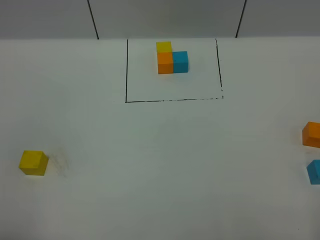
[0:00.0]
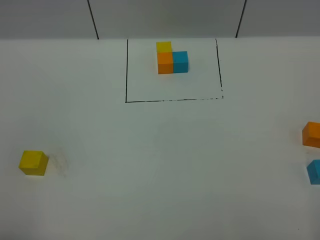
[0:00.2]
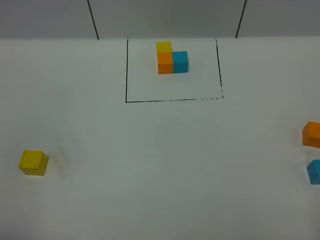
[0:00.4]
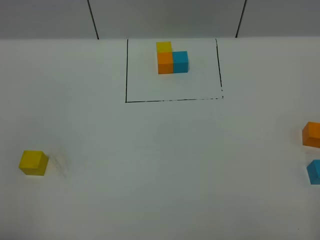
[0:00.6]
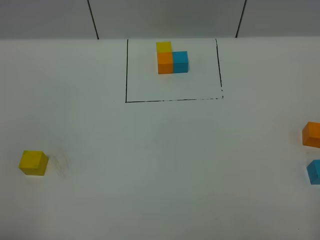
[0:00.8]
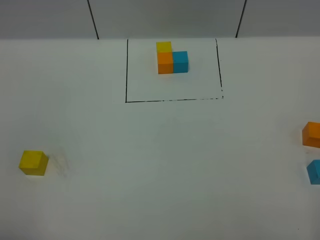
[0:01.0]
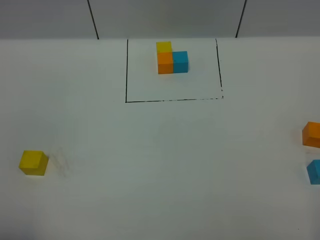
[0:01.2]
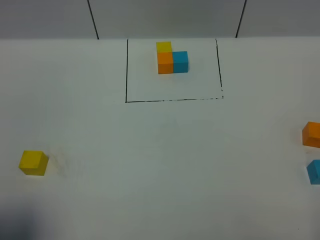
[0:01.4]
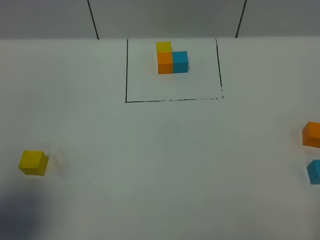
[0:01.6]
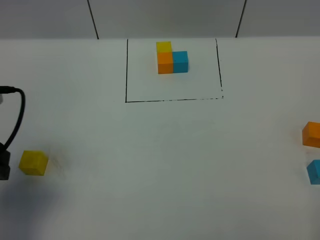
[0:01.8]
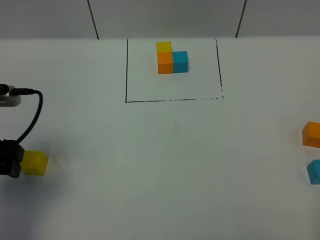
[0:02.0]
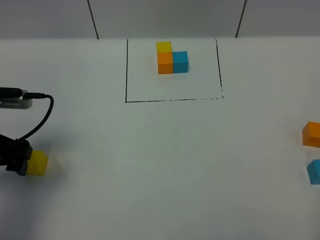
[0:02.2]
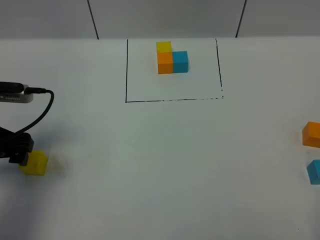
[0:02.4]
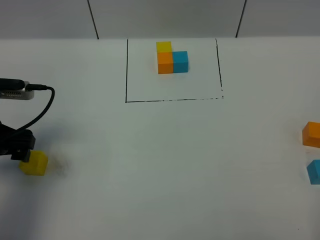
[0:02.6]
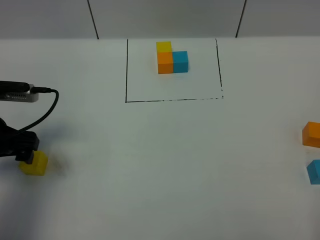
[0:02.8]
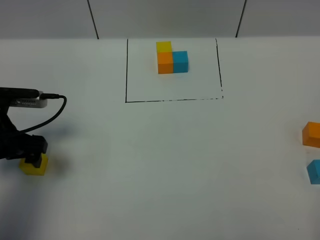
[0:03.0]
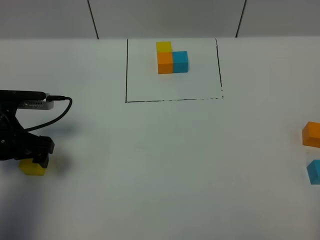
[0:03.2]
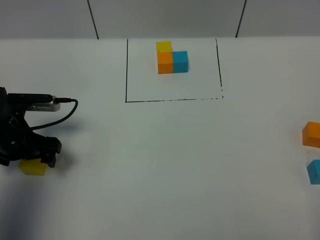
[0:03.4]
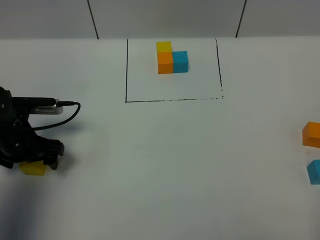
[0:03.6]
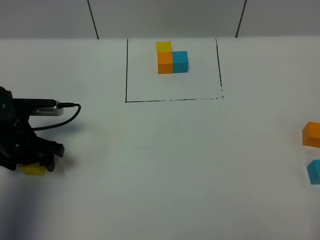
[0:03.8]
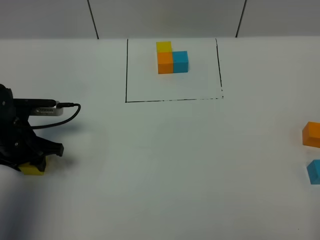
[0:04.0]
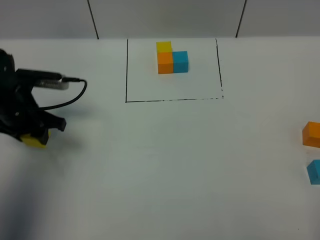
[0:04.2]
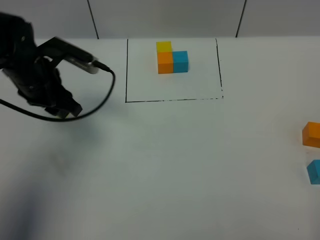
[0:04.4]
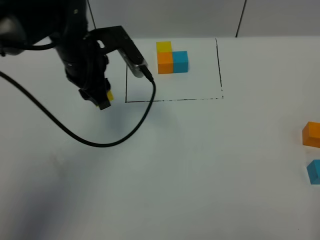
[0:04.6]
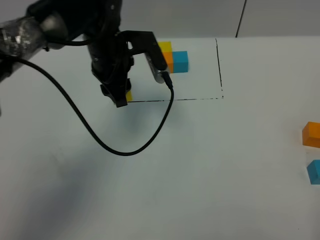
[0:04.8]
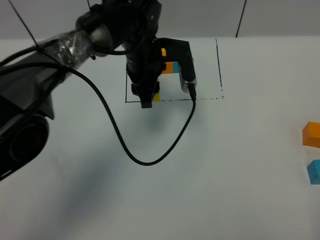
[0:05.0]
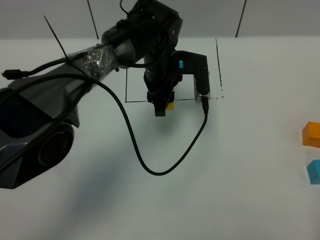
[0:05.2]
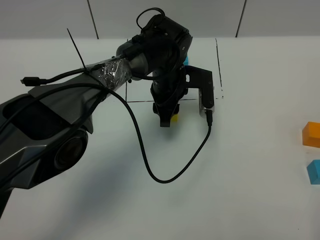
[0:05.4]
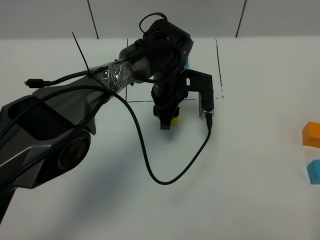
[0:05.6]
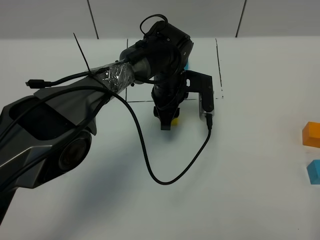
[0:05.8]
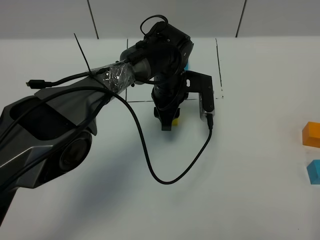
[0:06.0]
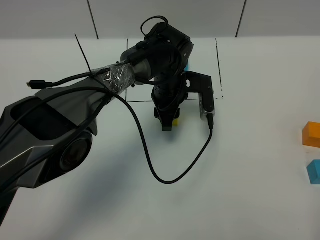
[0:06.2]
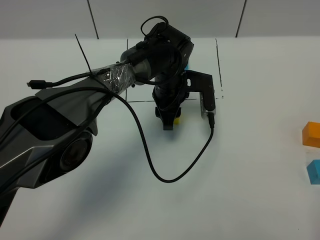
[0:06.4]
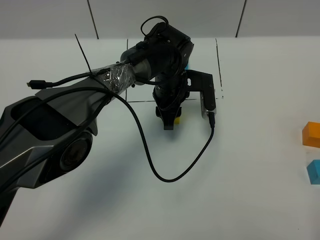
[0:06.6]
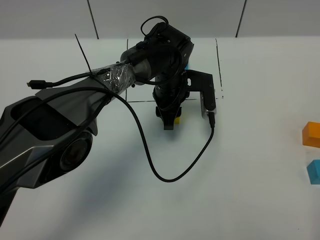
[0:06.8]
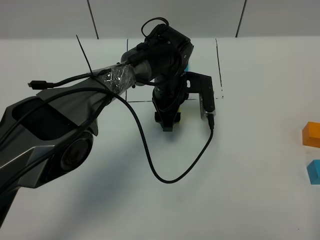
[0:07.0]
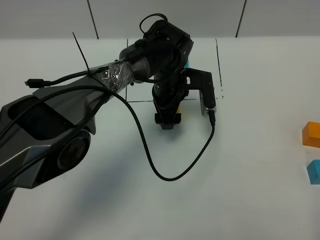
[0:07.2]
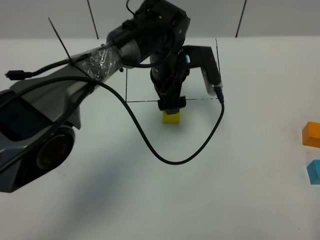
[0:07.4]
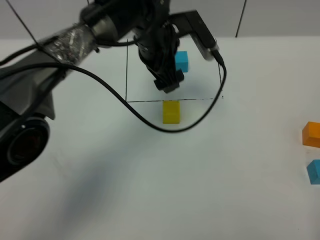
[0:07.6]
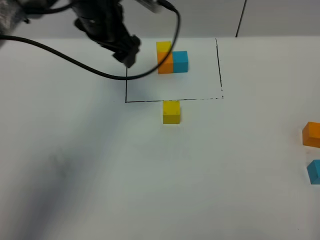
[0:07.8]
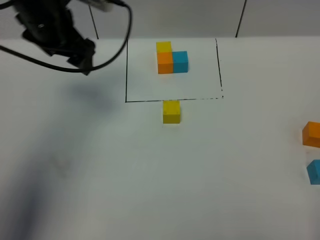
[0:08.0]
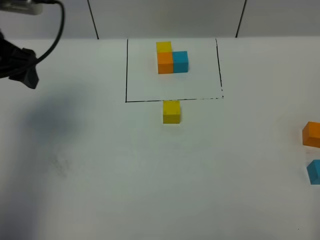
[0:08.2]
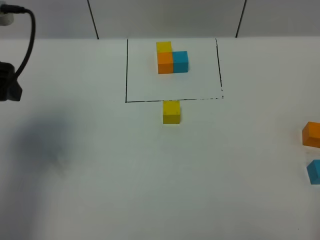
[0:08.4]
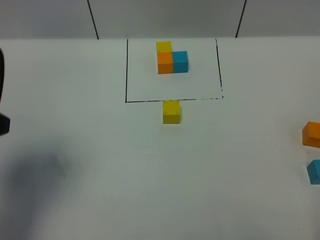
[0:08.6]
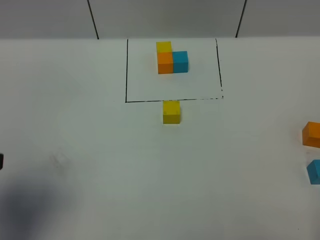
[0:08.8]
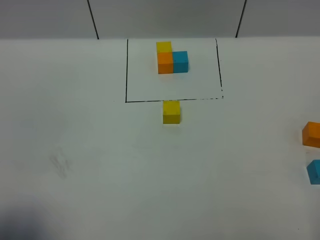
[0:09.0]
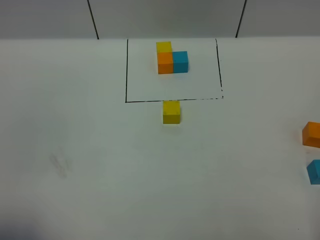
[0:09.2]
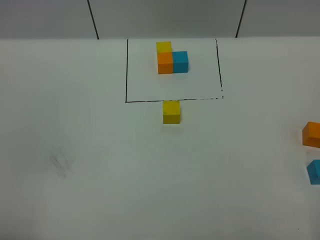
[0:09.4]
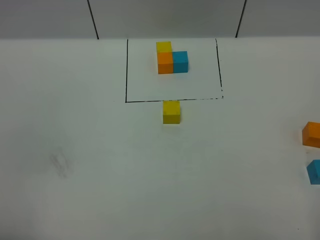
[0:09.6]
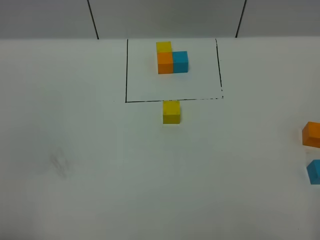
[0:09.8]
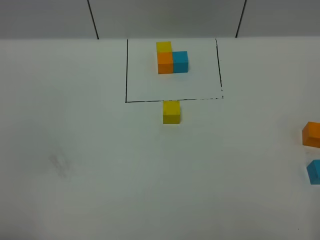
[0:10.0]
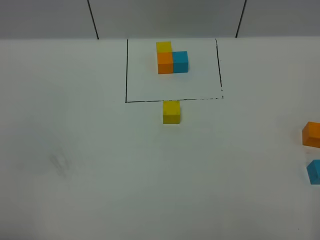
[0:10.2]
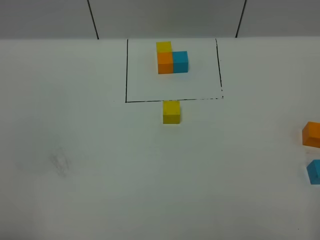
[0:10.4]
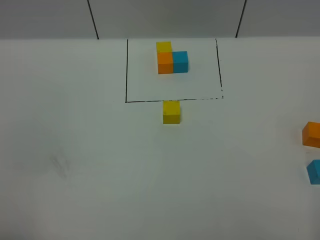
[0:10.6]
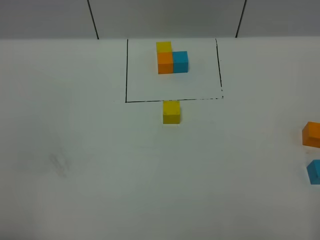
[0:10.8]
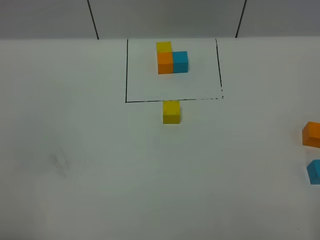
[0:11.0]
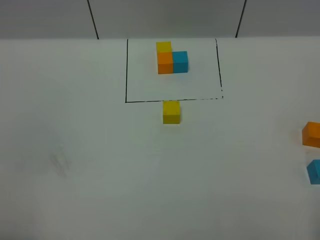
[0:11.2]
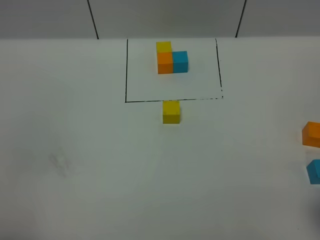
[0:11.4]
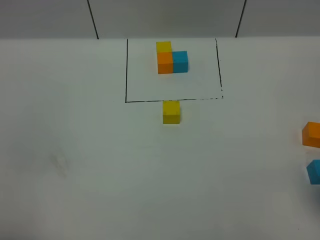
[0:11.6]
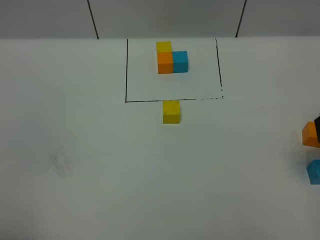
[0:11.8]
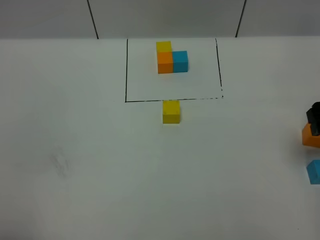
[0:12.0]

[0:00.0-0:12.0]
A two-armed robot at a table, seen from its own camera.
Task of the whole recording: According to the building block template in front, assemble the scattered blocks together.
Step, 0:00.0 to 0:07.0: Put the yellow build block in the center of the table.
0:00.0 to 0:01.6: The left gripper goes roughly 15 cm forward.
0:01.6 to 0:03.0: The left gripper heads forward and downward, covering some 20 cm.
0:03.0 to 0:04.4: The left gripper moves forward, to the right and upward, approximately 15 cm, and closes.
0:04.4 to 0:06.0: The left gripper goes some 25 cm to the right and downward.
0:06.0 to 0:07.6: The left gripper travels upward by approximately 15 cm, and opens up.
0:07.6 to 0:09.0: The left gripper travels backward and to the left by some 50 cm.
0:09.0 to 0:10.4: The left gripper shifts some 5 cm backward.
0:10.4 to 0:12.0: The right gripper moves forward, some 25 cm.

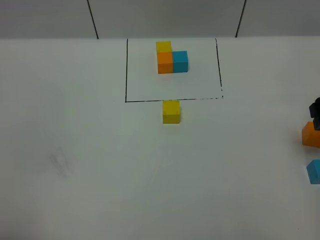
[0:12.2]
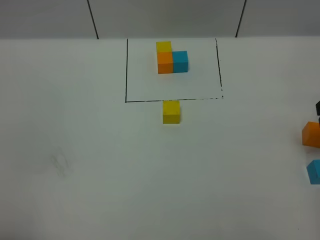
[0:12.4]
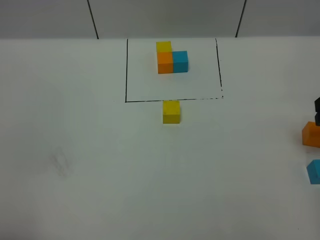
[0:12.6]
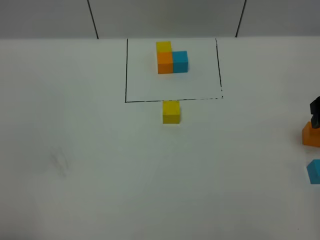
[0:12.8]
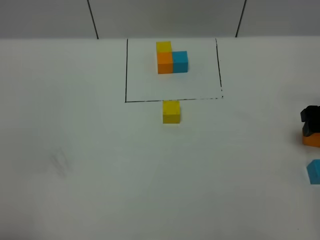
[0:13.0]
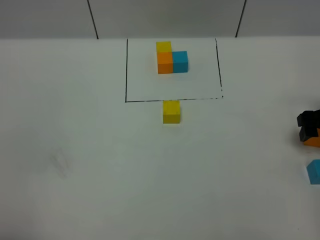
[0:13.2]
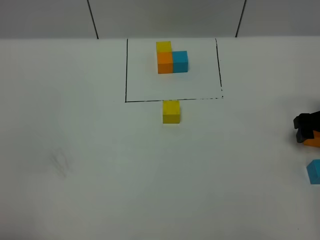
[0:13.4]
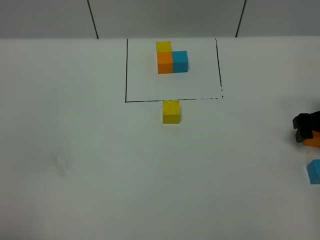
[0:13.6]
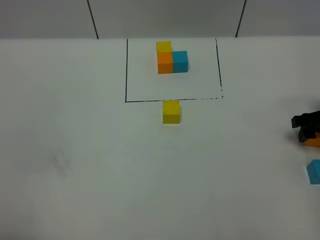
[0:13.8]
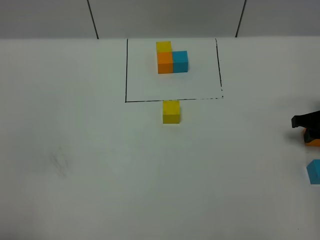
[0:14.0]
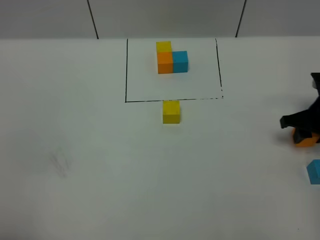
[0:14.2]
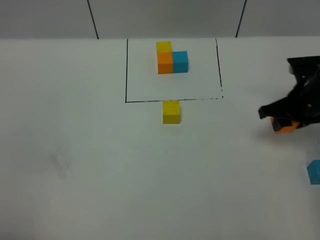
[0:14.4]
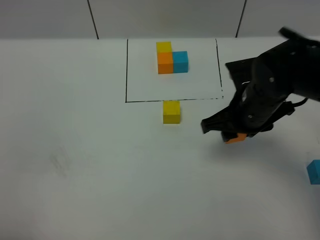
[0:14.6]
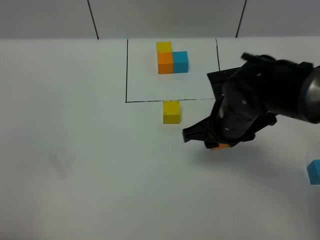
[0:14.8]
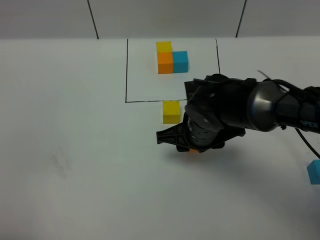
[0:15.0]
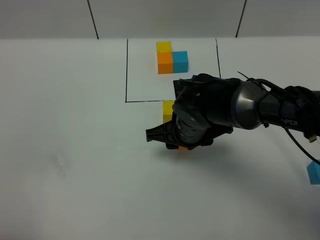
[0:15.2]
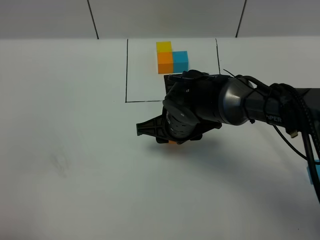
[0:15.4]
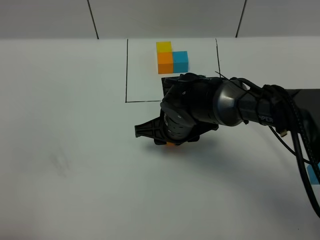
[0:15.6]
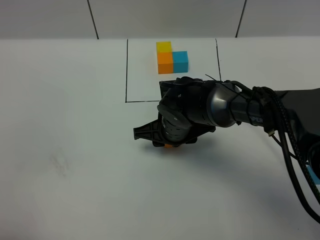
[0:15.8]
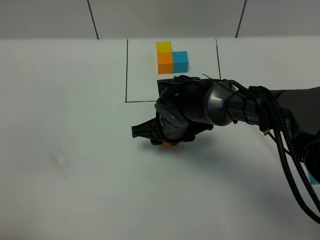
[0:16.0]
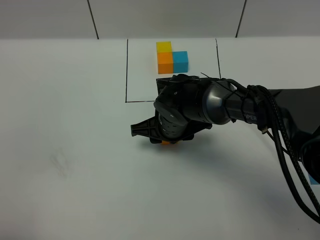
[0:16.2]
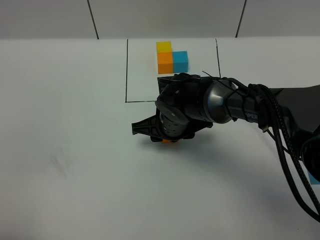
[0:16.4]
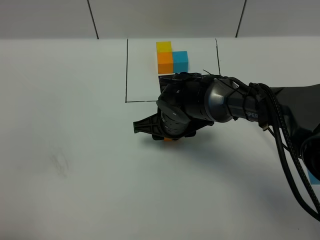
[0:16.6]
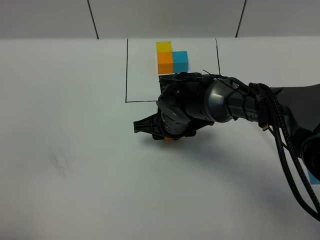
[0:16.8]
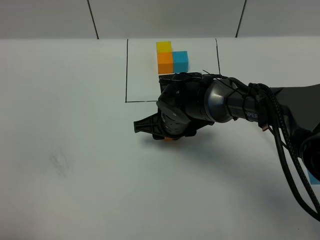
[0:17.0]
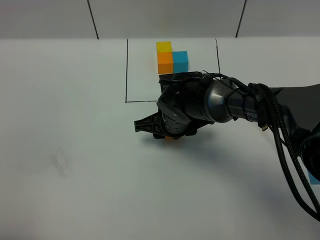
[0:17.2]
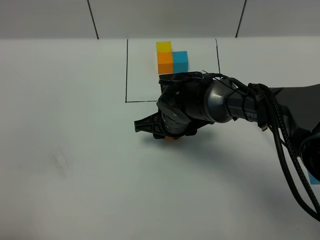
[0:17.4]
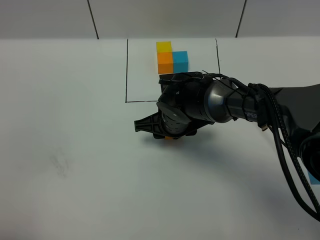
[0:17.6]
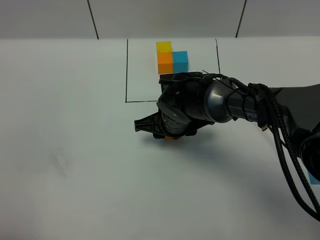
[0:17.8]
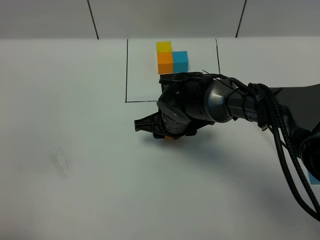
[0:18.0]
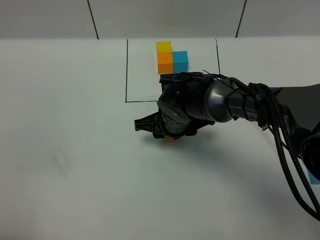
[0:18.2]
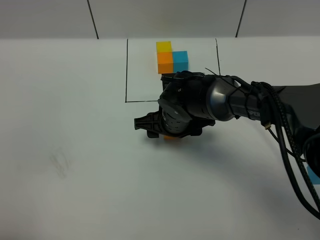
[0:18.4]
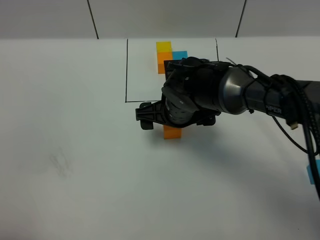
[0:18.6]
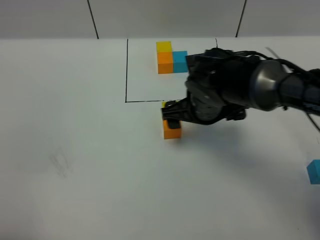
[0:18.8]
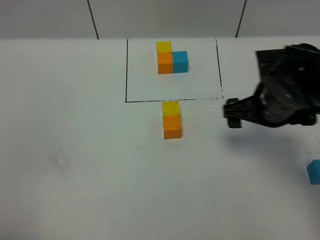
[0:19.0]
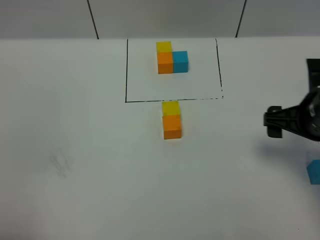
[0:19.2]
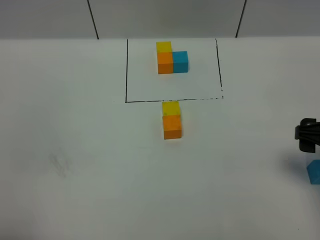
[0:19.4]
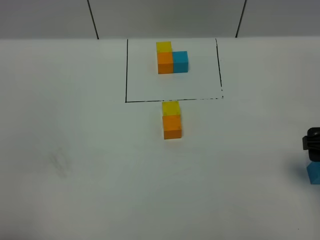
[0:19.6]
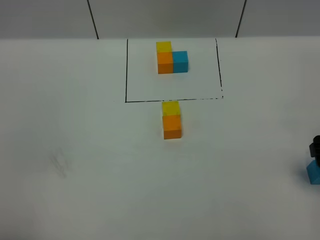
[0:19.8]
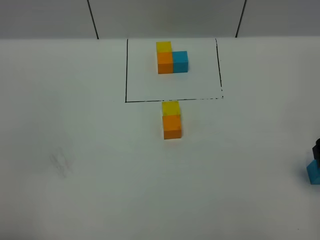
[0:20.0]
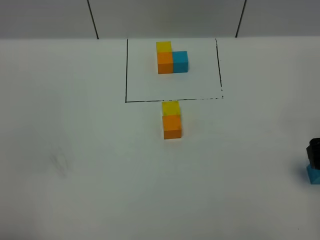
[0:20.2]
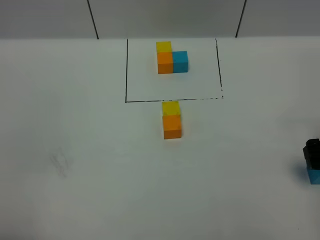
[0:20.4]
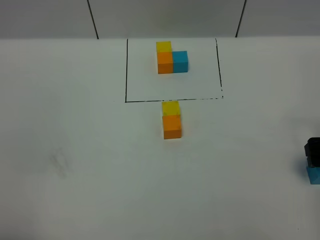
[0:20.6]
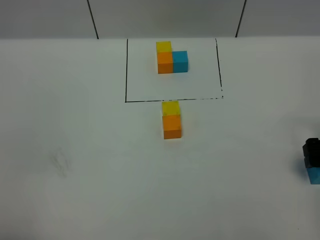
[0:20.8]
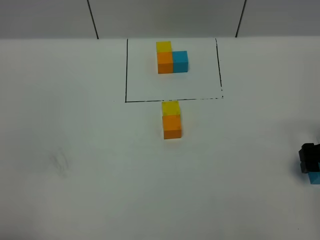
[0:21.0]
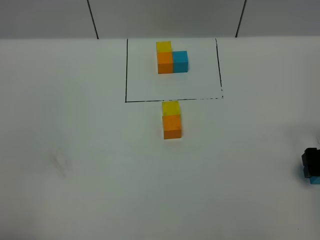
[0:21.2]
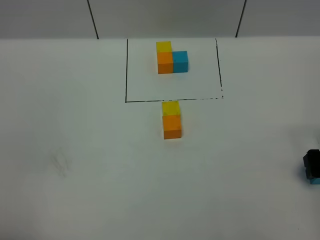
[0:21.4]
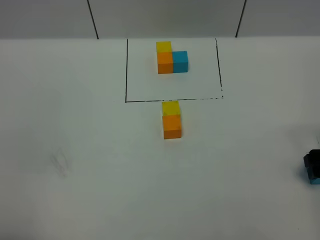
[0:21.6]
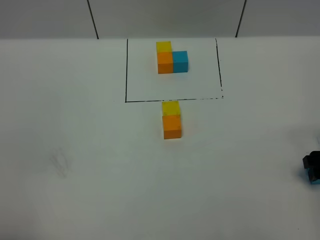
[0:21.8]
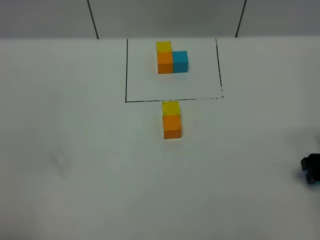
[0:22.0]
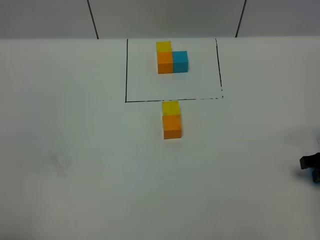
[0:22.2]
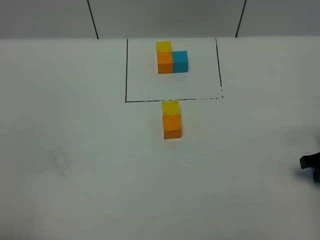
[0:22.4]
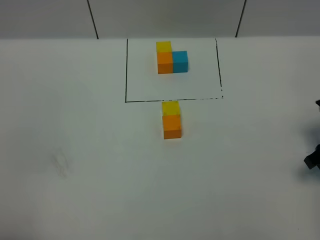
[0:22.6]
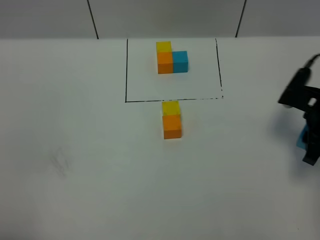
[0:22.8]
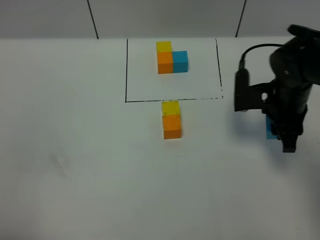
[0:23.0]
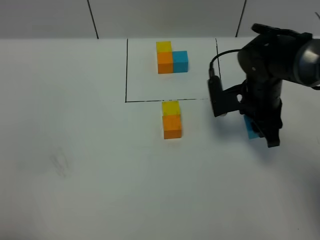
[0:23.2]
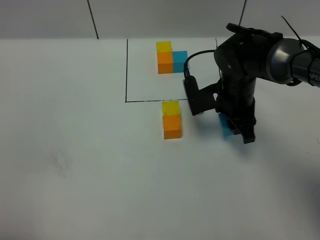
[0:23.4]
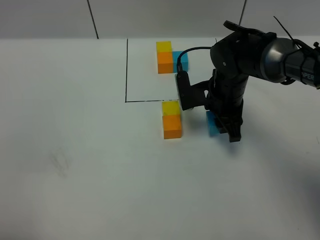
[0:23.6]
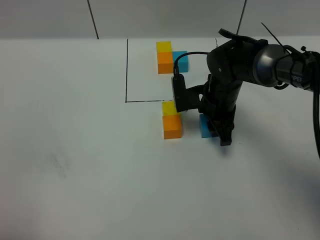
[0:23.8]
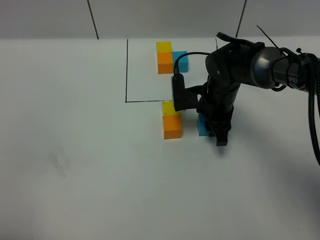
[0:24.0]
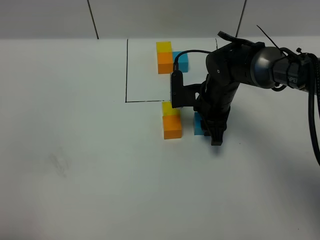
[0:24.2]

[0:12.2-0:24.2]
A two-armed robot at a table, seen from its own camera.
Task of the whole recording: According to the building block template in front, assemble the scattered blocks together.
Step, 0:12.2 to 0:18.6: Put the orange build block on the behind of the yellow build block.
0:12.2 to 0:13.8: The right gripper moves downward and forward, about 15 cm, and closes up.
0:13.8 to 0:15.2: The right gripper travels to the left by some 30 cm.
0:15.2 to 0:16.6: The grippers move only a little.
0:16.6 to 0:18.2: Neither gripper changes place.
0:18.2 to 0:19.8: The right gripper travels to the right by about 30 cm, and opens its fingers.
0:19.8 to 0:21.2: The right gripper heads downward, covering some 10 cm.
0:21.2 to 0:22.6: The right gripper closes up.
0:22.6 to 0:24.2: The right gripper goes some 25 cm to the left and forward.
